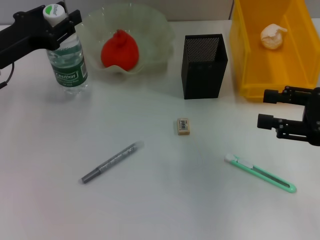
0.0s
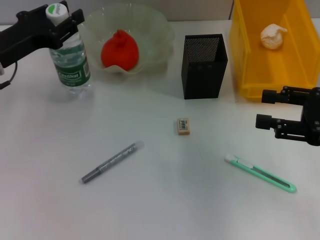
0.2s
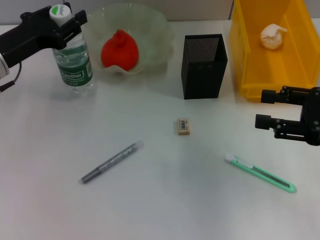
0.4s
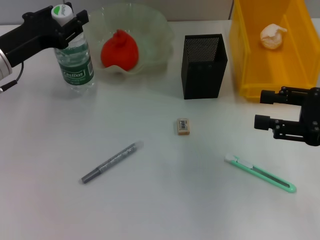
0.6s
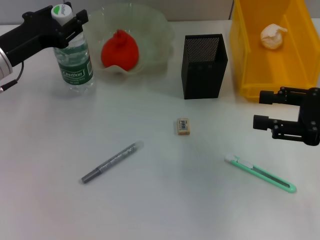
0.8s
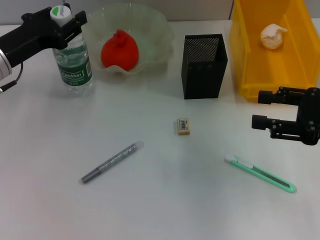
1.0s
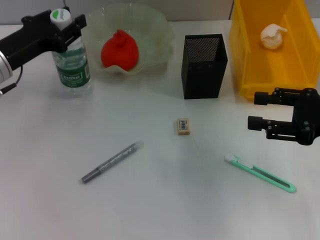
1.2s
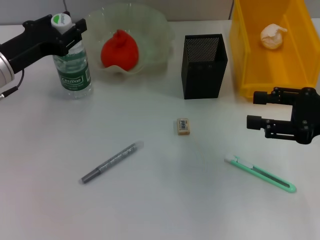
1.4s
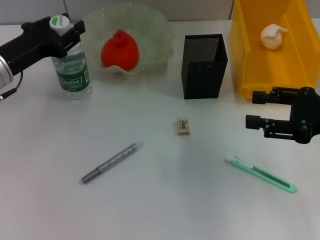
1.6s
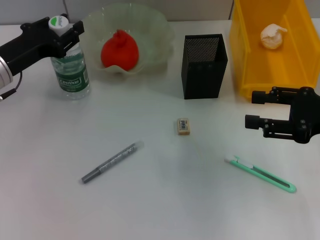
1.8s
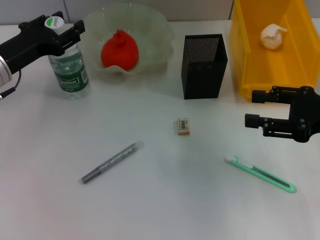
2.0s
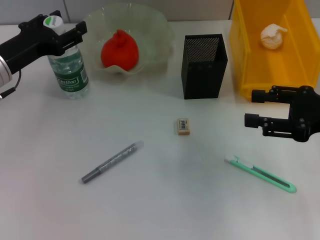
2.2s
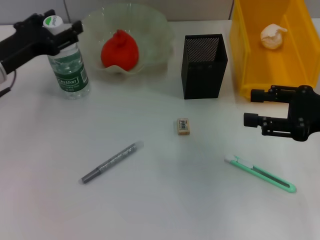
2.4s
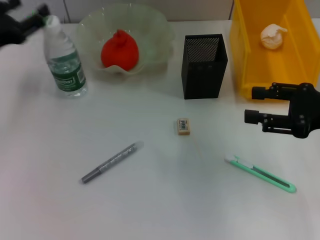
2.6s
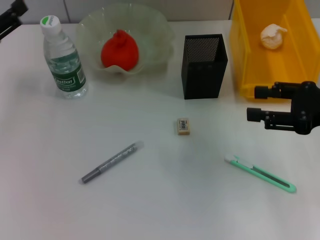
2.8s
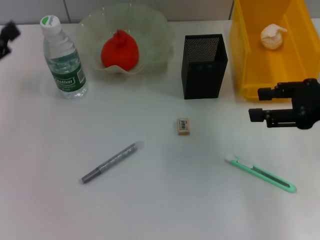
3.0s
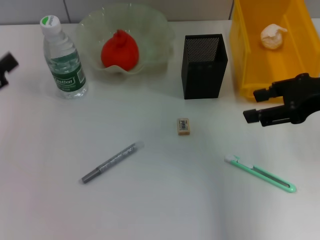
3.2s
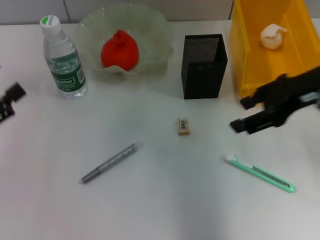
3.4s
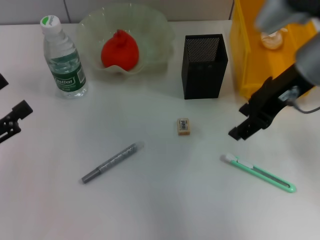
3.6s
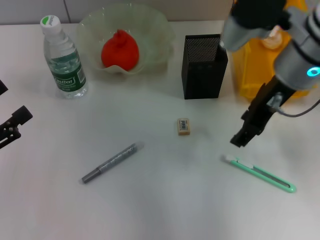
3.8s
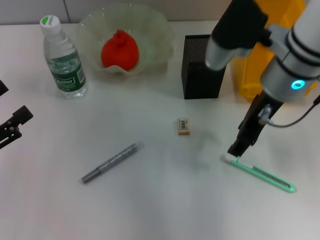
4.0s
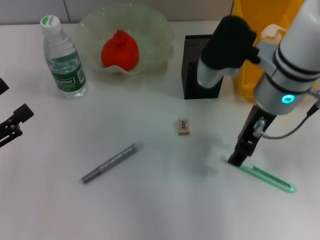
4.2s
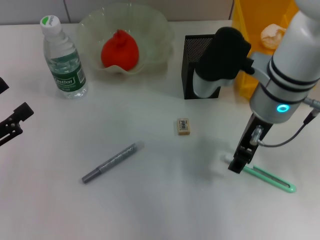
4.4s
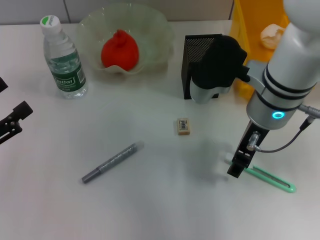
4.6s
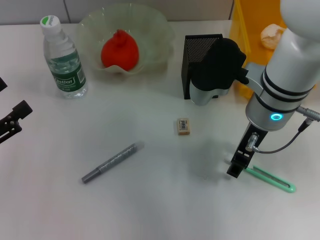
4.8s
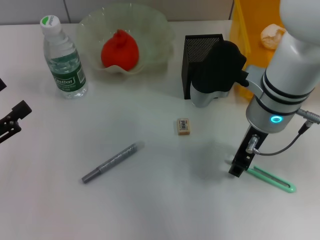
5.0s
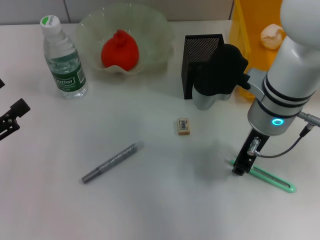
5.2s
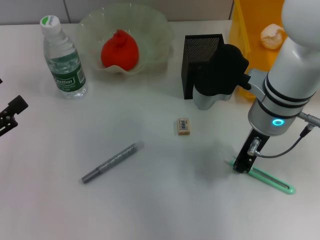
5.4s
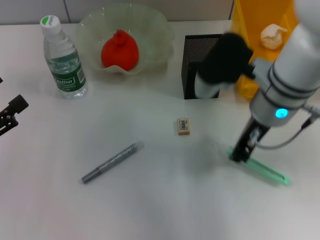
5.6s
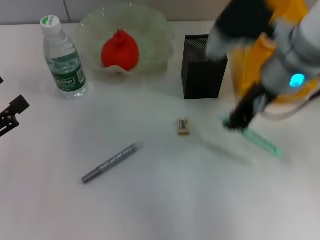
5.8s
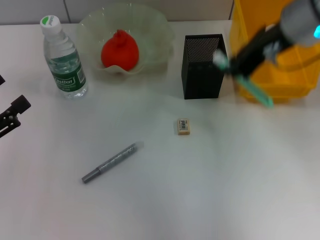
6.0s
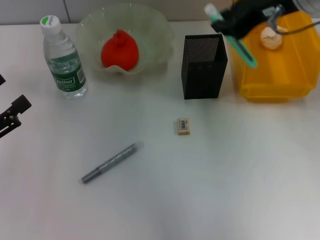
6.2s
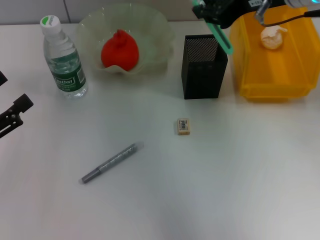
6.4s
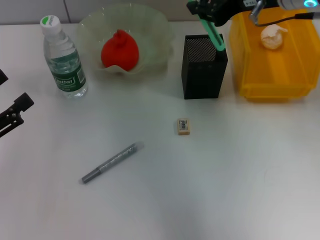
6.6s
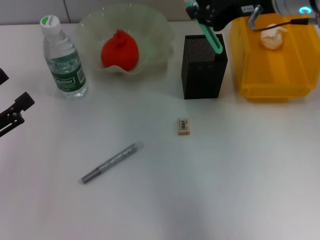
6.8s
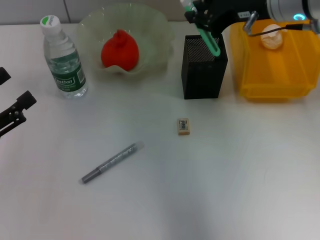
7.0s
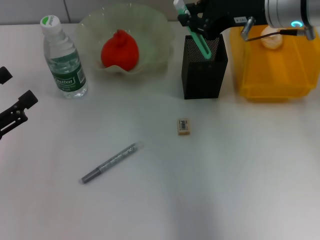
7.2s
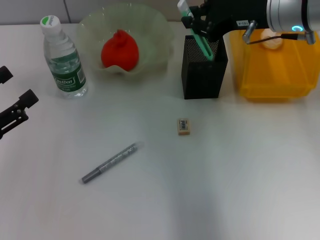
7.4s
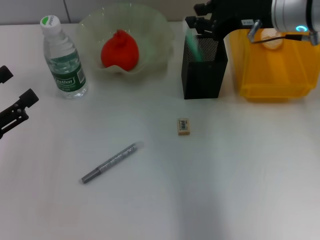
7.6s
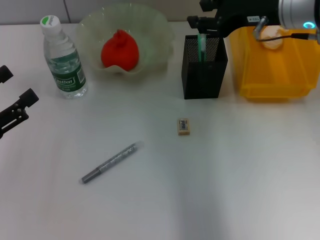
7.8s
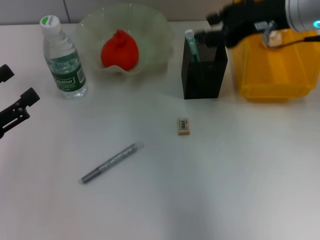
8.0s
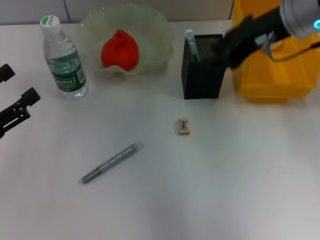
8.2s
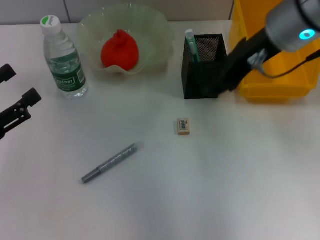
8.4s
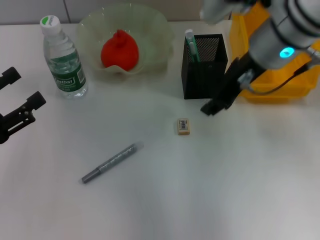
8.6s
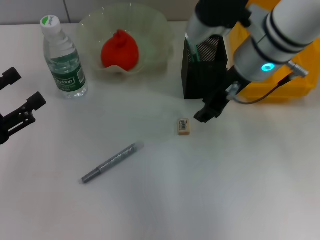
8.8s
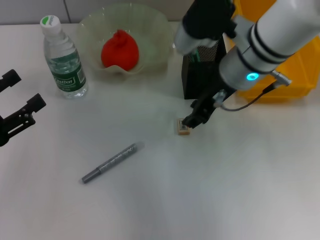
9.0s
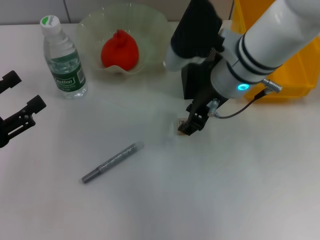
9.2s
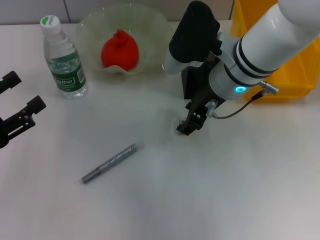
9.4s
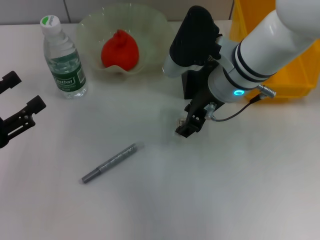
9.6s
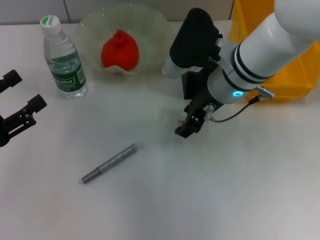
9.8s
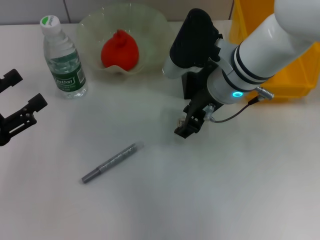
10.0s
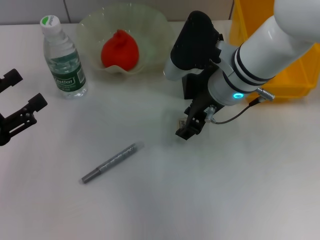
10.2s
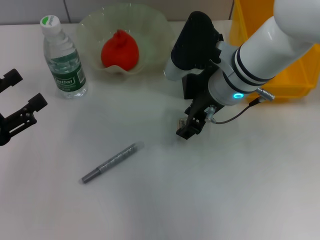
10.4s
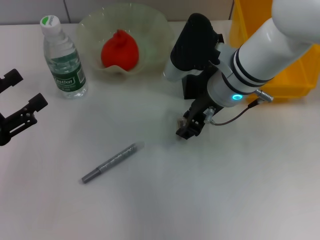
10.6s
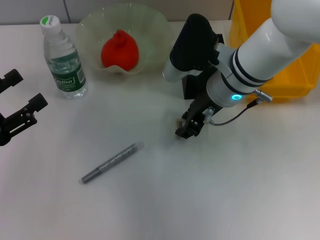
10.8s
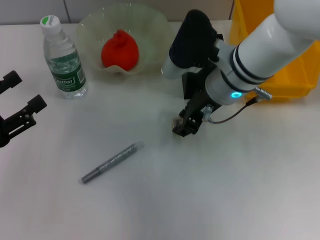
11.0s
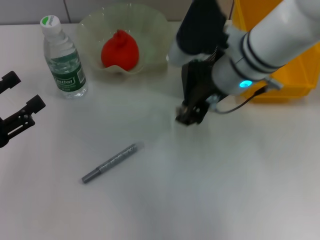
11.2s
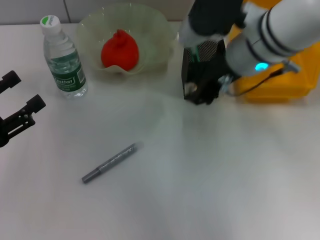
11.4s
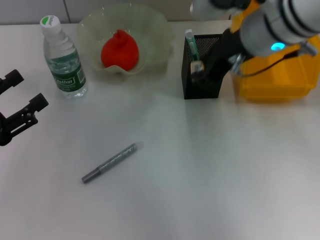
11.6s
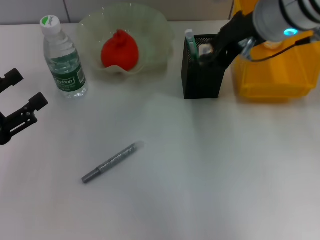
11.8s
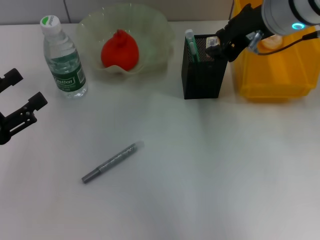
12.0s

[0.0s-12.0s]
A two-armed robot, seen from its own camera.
Step, 0.0s to 2.8s: Place the water bottle on the table with the left hand.
Step, 3.2s to 5.2s: Grab the blue utility knife with the right hand.
Step, 5.4s to 8.2s: Place the blue utility knife into the pen holder with the right hand.
Step, 8.4s to 10.4s: Grab the eraser with the right hand.
0.0s to 1.6s: The grippers stay close to where they were, moving slightly.
1.6s to 3.0s: The left gripper travels backward and to the left by some 15 cm, and opens up.
3.0s to 4.4s: The left gripper goes roughly 5 cm backward. Meanwhile the right gripper shifts roughly 15 cm to the left.
4.4s to 6.0s: The right gripper goes roughly 10 cm upward, and closes up.
6.0s to 7.6s: The right gripper travels downward by about 5 cm.
7.6s to 9.0s: The right gripper is displaced to the left by about 10 cm, and opens up.
9.0s to 10.4s: The grippers move only a little.
10.4s to 12.0s: The right gripper heads upward, covering about 10 cm, and closes.

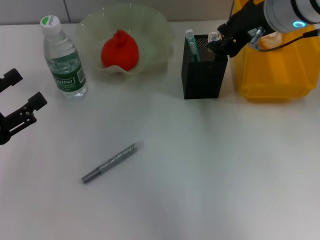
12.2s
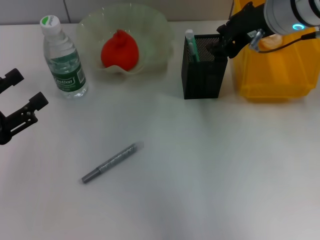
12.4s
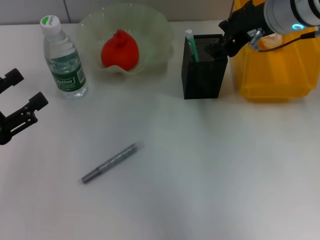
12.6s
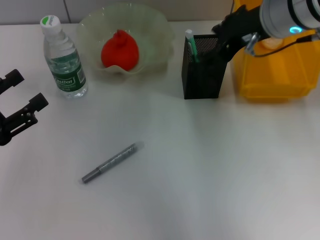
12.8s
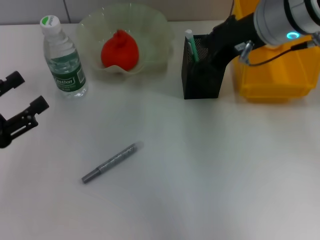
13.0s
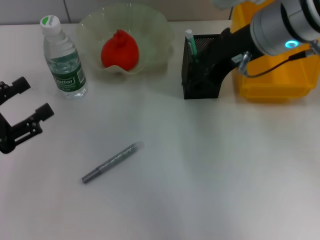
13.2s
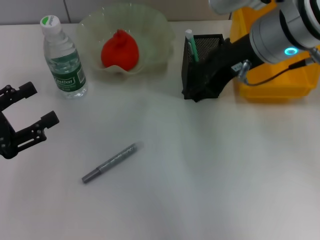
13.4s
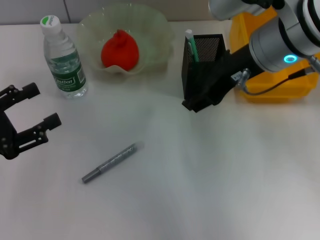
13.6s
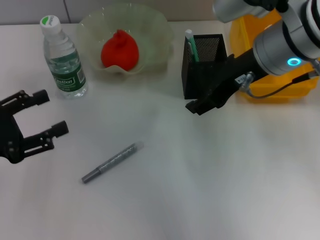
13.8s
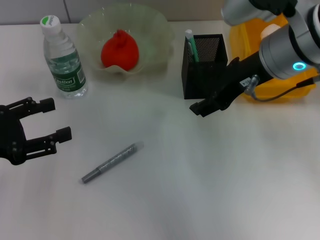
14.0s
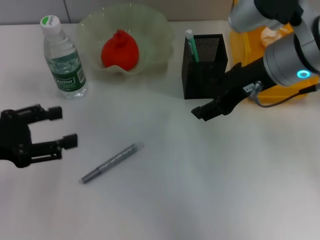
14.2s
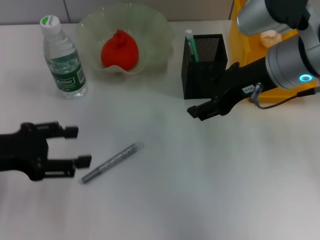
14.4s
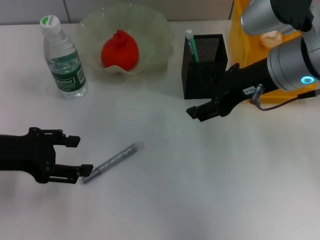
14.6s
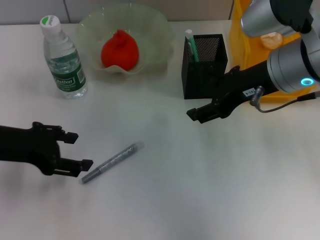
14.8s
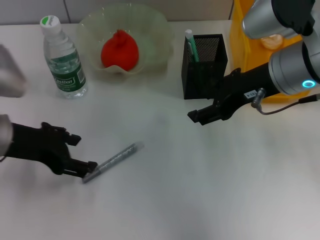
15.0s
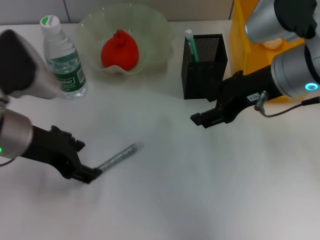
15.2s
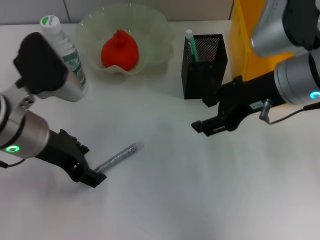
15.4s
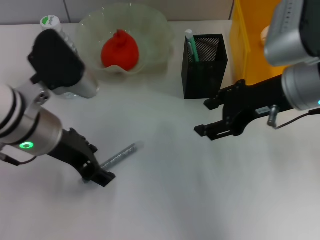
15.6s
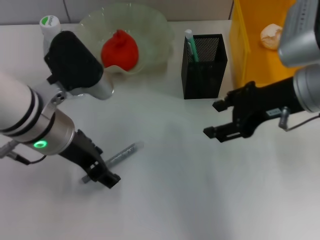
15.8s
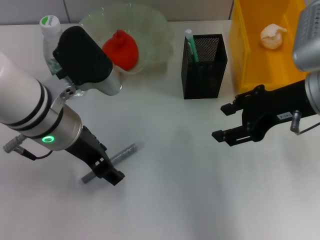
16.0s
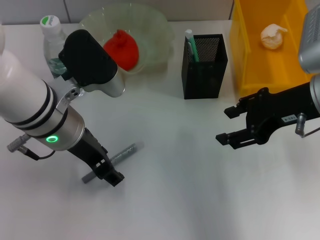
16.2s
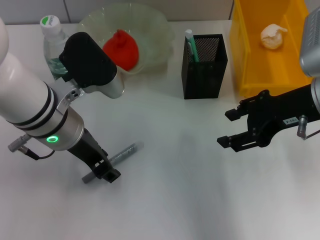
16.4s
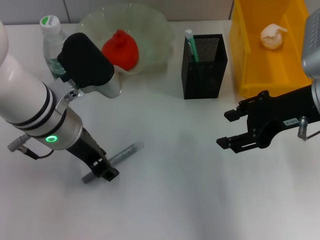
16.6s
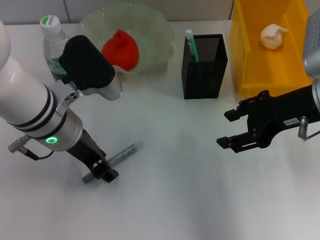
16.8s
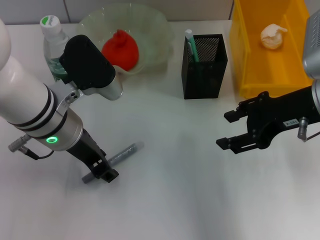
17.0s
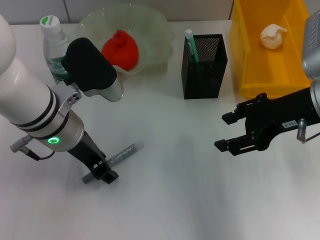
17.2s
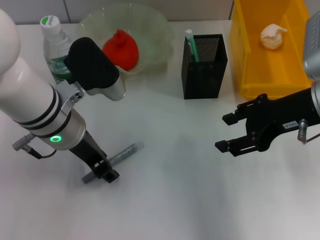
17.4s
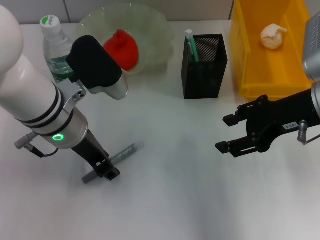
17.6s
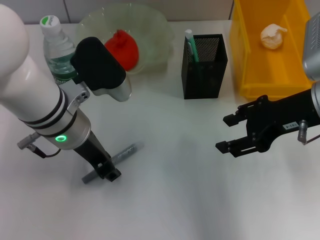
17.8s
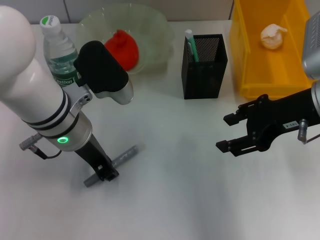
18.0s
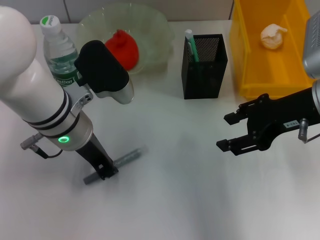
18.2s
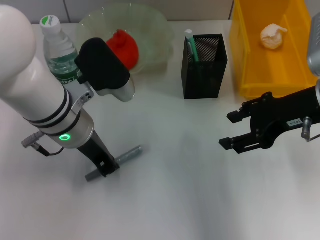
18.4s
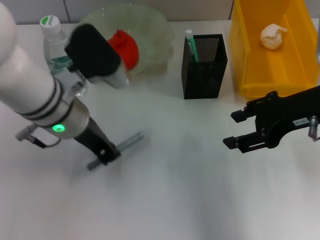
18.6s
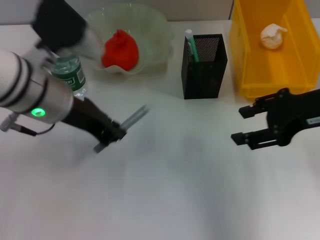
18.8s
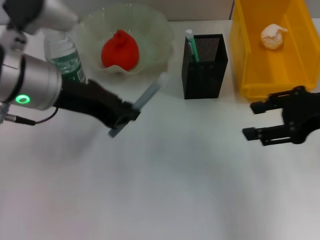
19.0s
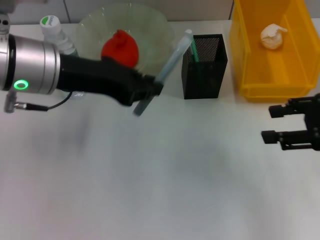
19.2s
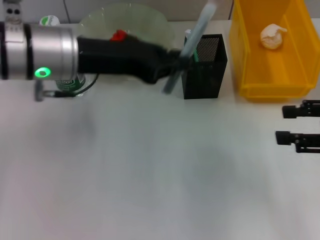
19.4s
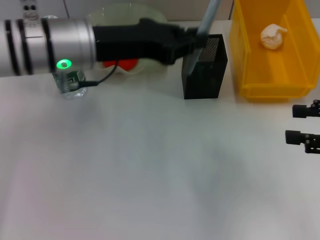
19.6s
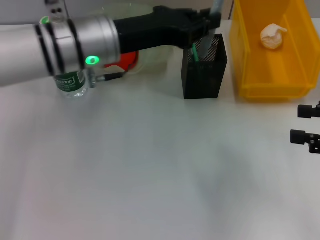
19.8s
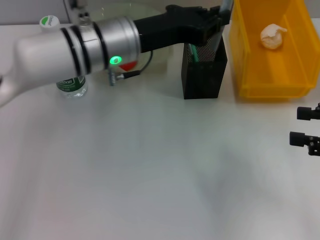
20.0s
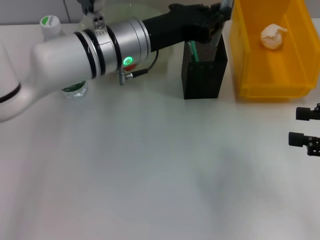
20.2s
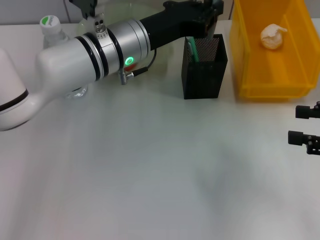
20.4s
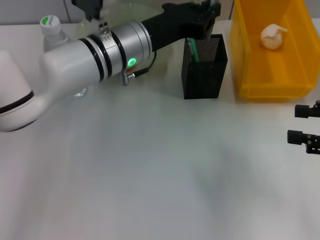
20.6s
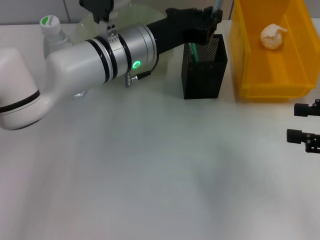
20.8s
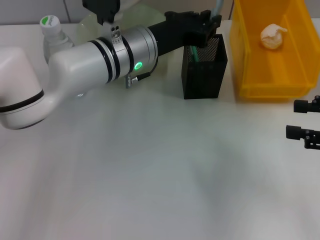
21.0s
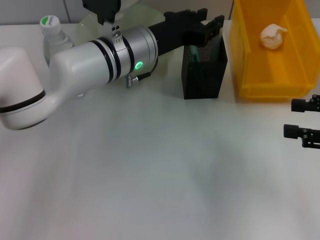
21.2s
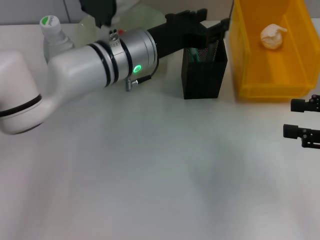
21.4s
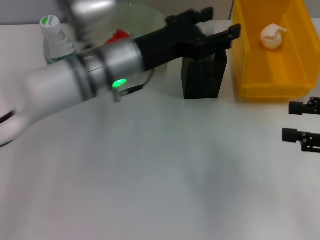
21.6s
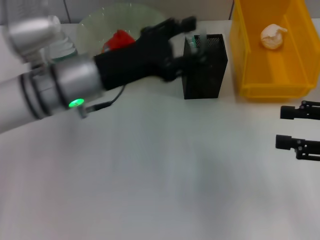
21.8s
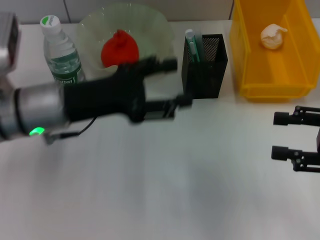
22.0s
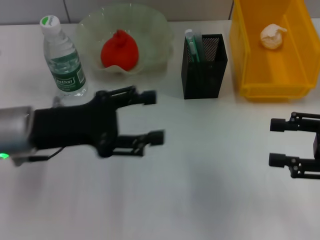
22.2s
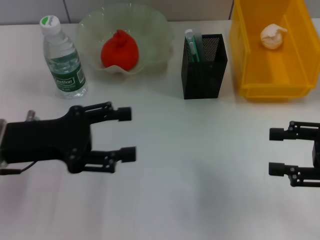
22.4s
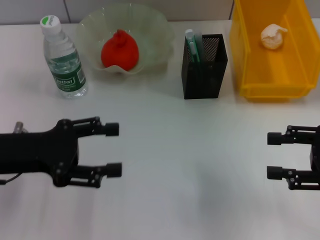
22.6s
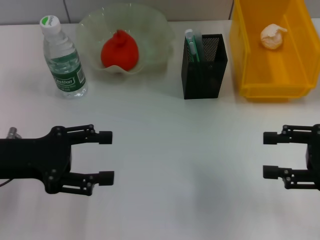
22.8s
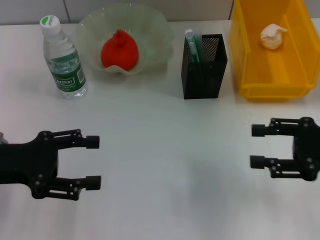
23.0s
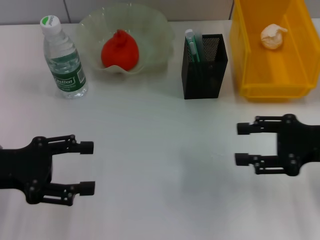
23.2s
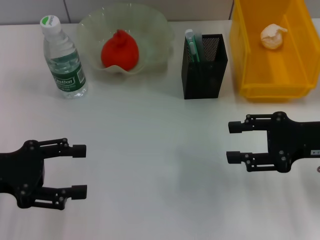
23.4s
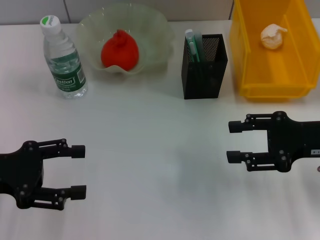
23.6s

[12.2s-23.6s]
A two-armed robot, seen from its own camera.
Step, 13.0s to 18.2s: Grab the gray spring-action pen with the left hand.
Step, 18.4s to 21.8s: Place the gray spring-action pen into the pen holder with the left hand.
12.2s to 13.6s: The right gripper opens up.
13.6s to 15.0s: The left gripper moves to the right and forward, roughly 10 cm.
15.0s to 16.4s: The left gripper moves to the right, approximately 10 cm, while the right gripper goes approximately 5 cm to the right.
16.4s to 17.8s: The left gripper closes.
17.8s to 19.4s: The left gripper is displaced upward by about 5 cm, and closes; the right gripper heads to the right and backward, covering roughly 10 cm.
19.4s to 20.8s: The left gripper heads to the right, downward and forward, covering roughly 15 cm.
20.8s to 22.2s: The left gripper shifts some 20 cm to the left and backward, and opens up.
22.2s to 23.6s: The right gripper moves roughly 5 cm. The left gripper moves to the left, about 10 cm.
